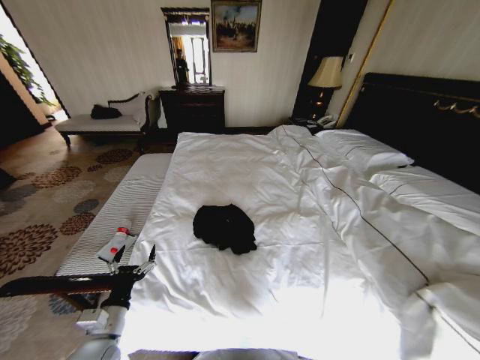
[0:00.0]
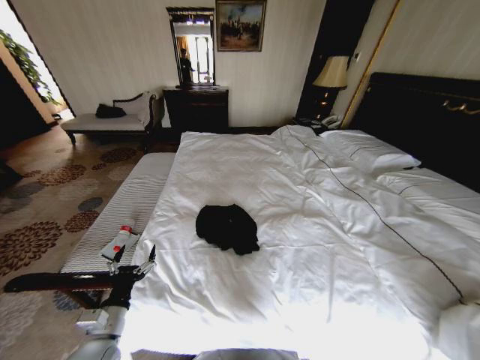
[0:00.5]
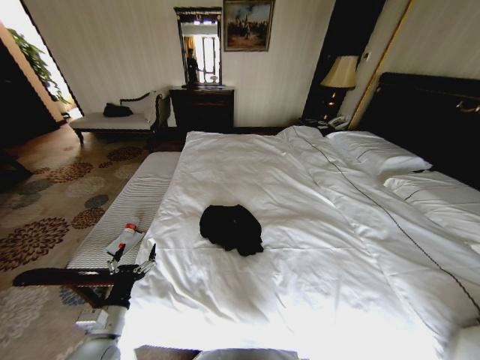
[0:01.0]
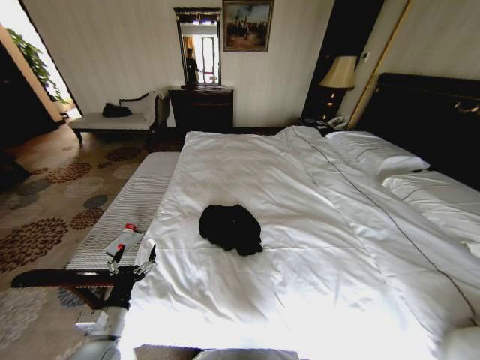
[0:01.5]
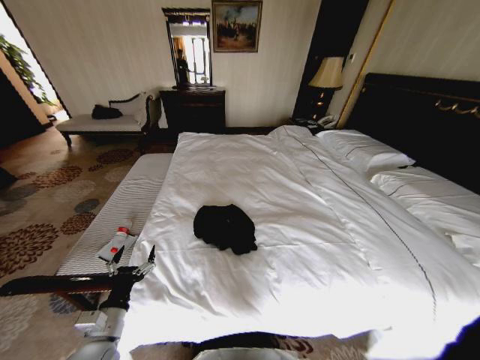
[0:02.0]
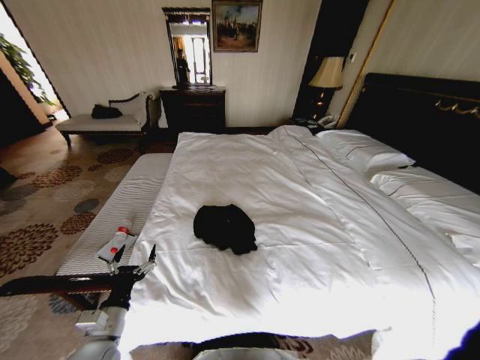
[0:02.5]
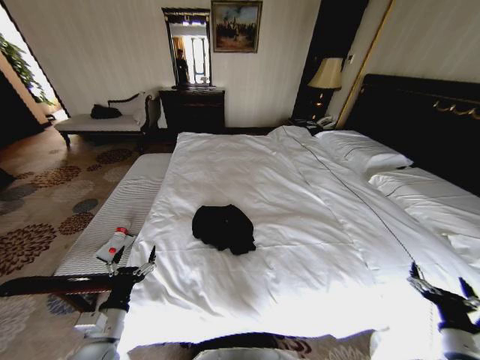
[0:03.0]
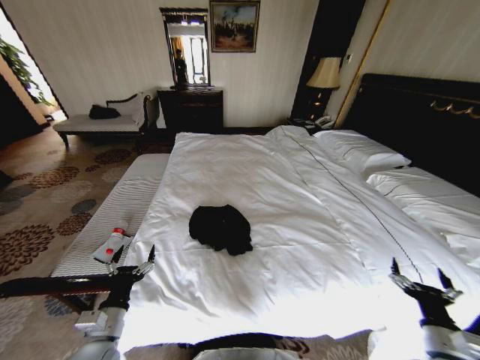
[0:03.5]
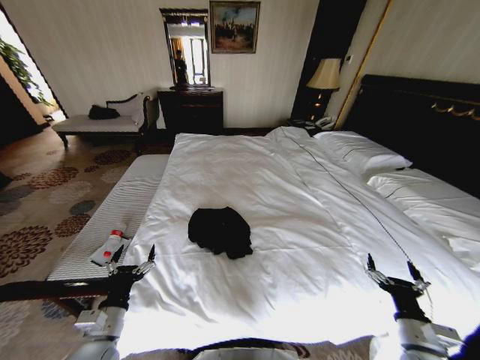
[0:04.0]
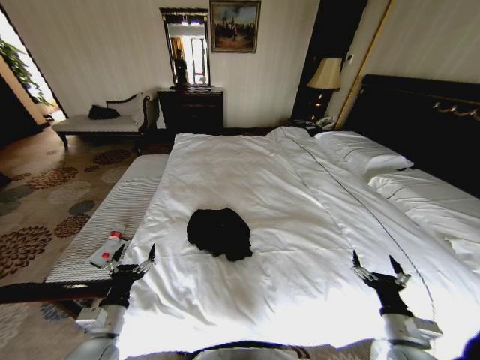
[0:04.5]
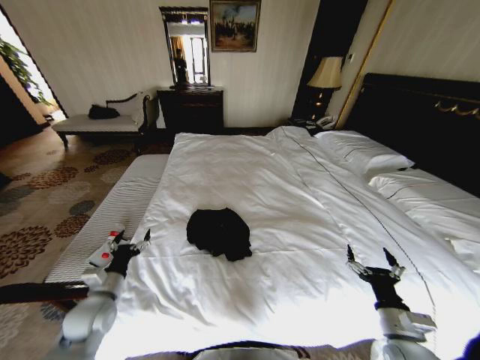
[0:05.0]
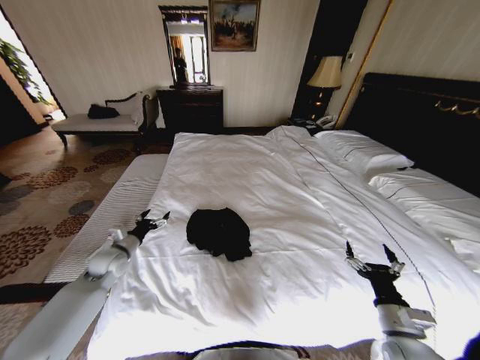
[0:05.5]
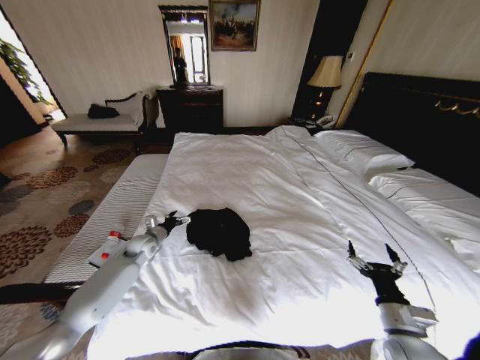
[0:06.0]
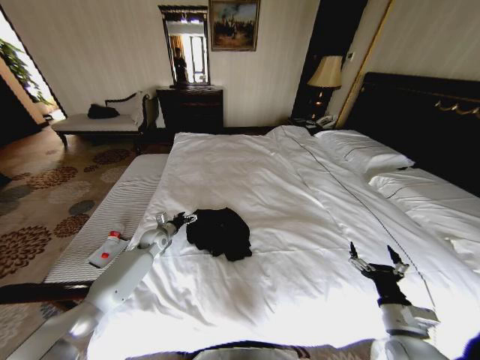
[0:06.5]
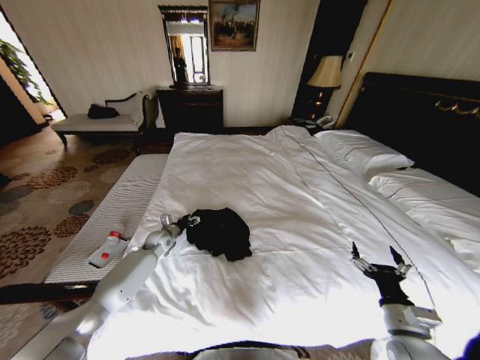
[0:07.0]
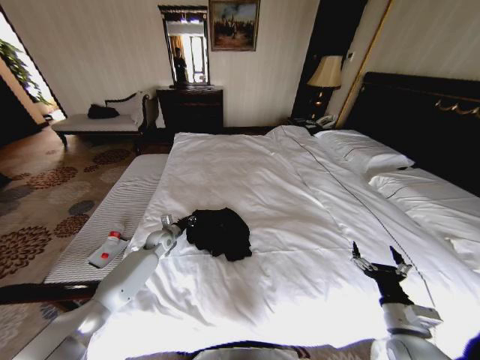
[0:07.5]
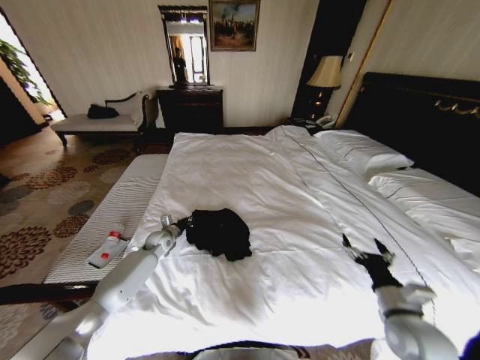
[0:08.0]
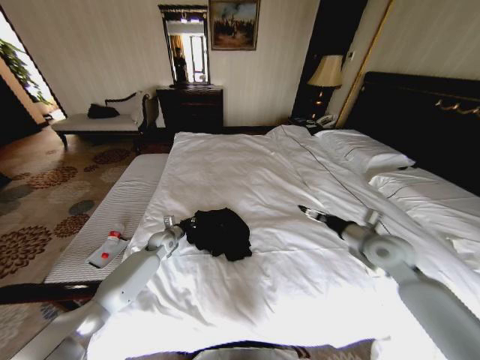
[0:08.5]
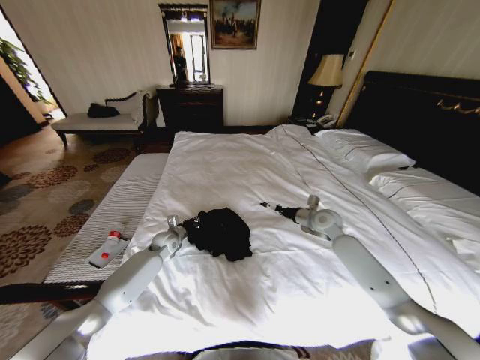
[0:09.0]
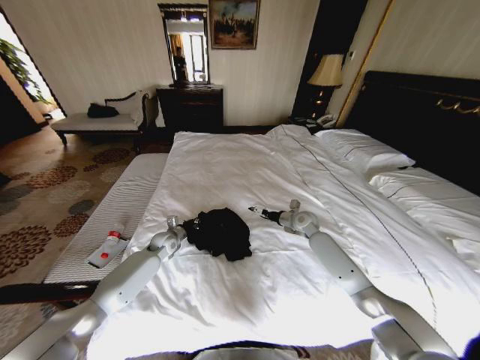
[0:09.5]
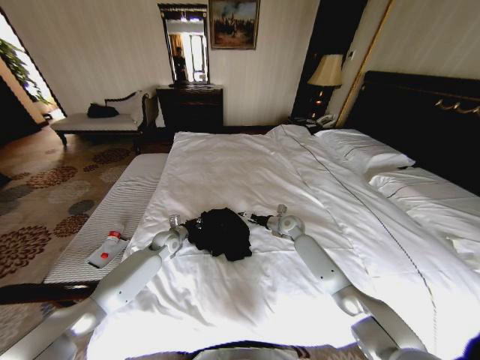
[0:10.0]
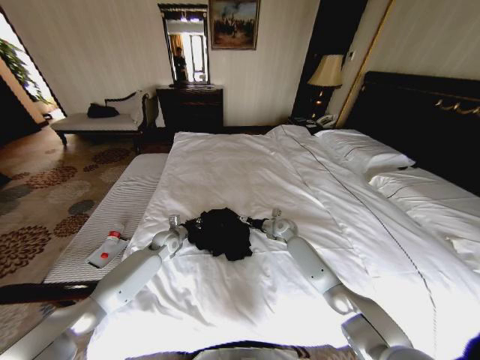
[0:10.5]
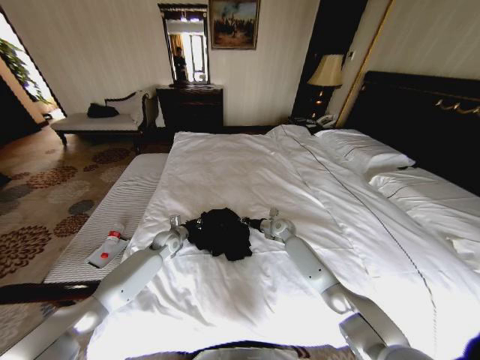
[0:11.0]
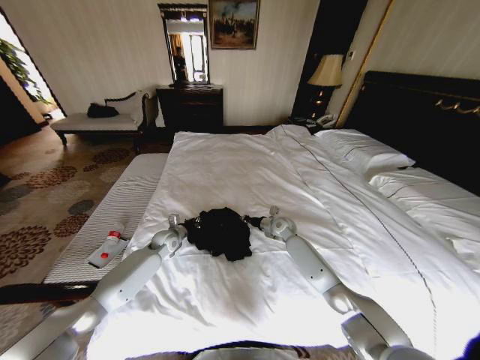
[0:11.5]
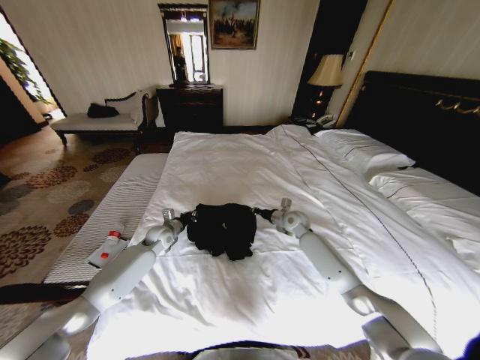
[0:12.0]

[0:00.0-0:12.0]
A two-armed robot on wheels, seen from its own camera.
Task of the whole recording: Fold the clothes on the bed.
0:00.0 to 0:02.0: The right gripper goes roughly 20 cm to the right, downward and backward, and opens up.
0:02.0 to 0:04.0: The right gripper is displaced to the left by roughly 35 cm, and opens up.
0:04.0 to 0:06.0: The right gripper ends up about 5 cm from where it was. Meanwhile the left gripper shifts some 30 cm forward.
0:06.0 to 0:08.0: The left gripper ends up about 5 cm from where it was, and closes its fingers.
0:08.0 to 0:10.0: The right gripper moves forward, roughly 35 cm.
0:10.0 to 0:12.0: The right gripper closes.

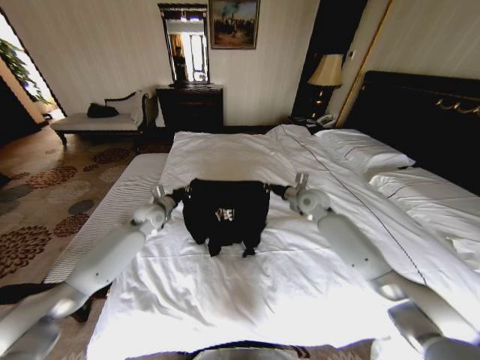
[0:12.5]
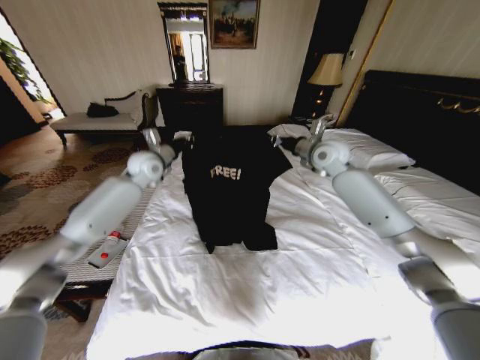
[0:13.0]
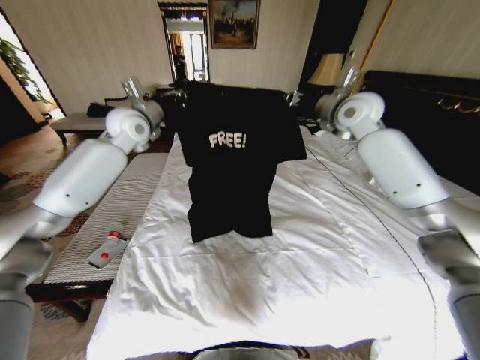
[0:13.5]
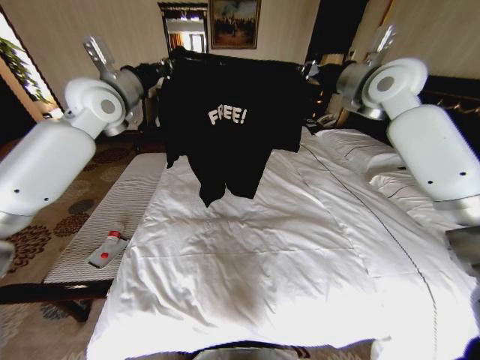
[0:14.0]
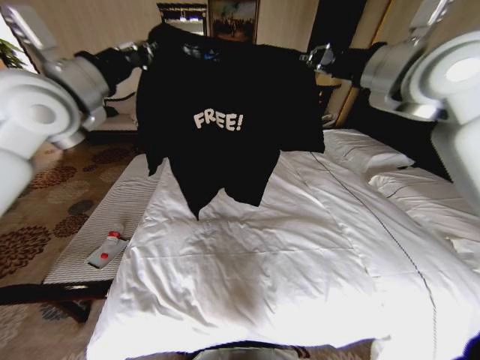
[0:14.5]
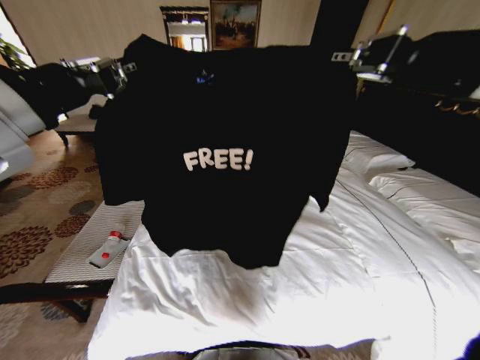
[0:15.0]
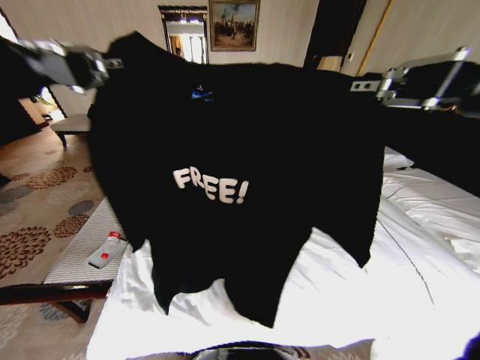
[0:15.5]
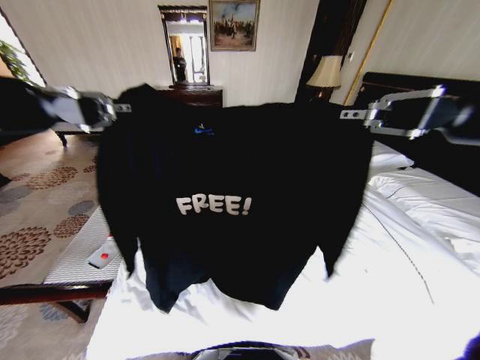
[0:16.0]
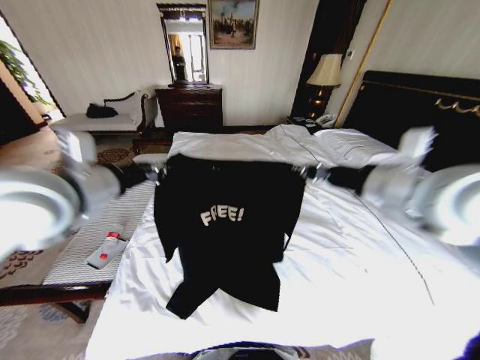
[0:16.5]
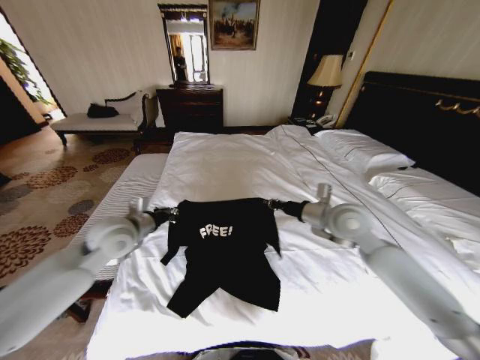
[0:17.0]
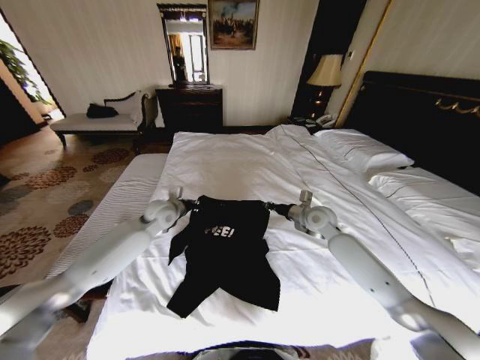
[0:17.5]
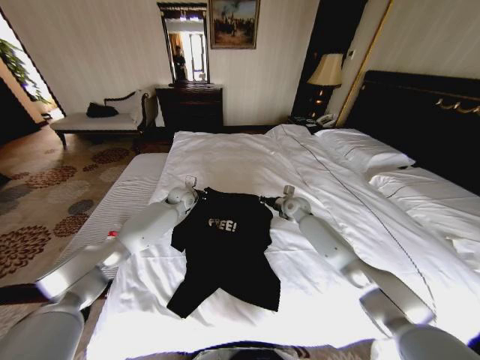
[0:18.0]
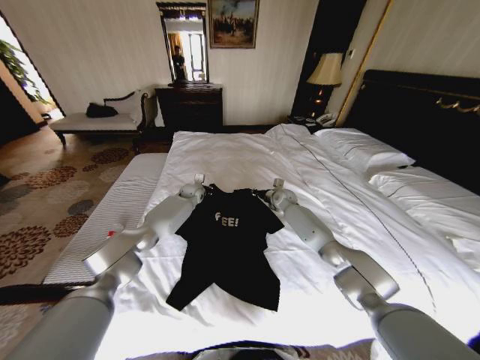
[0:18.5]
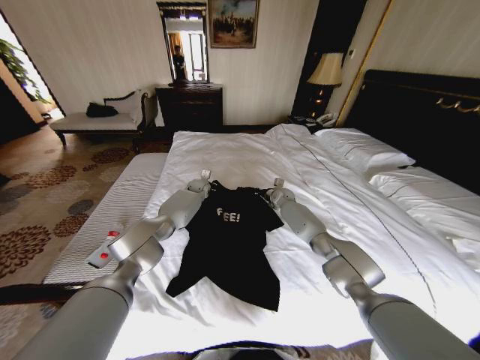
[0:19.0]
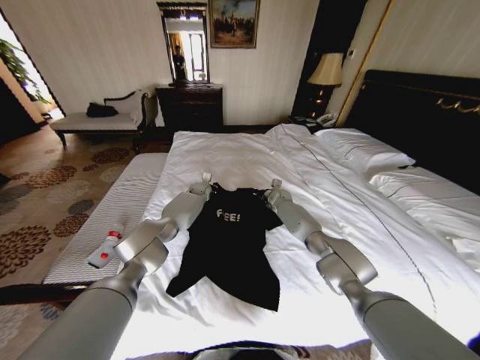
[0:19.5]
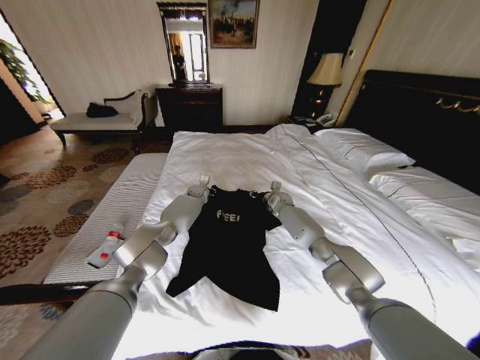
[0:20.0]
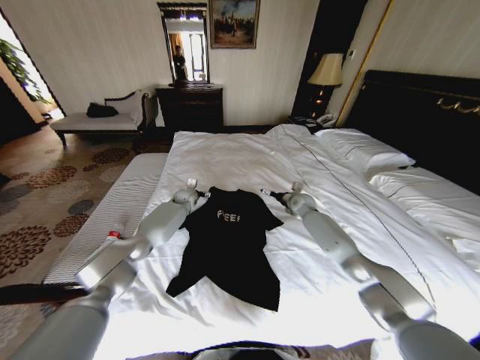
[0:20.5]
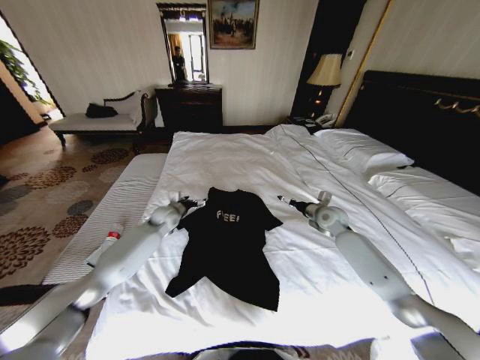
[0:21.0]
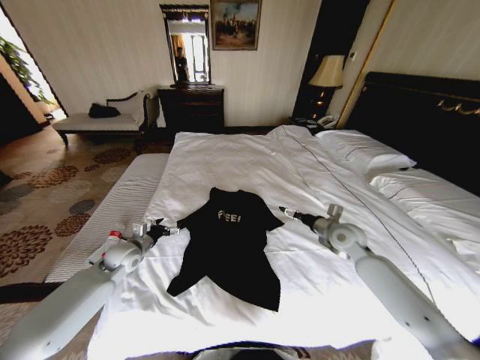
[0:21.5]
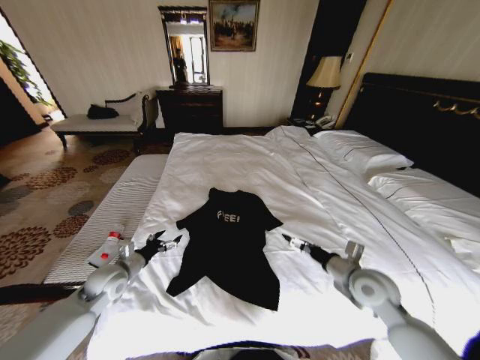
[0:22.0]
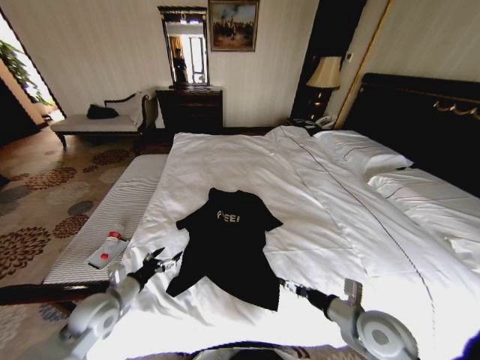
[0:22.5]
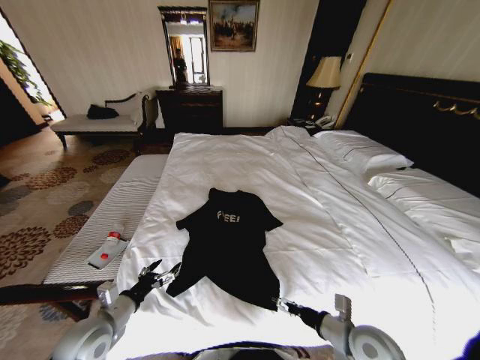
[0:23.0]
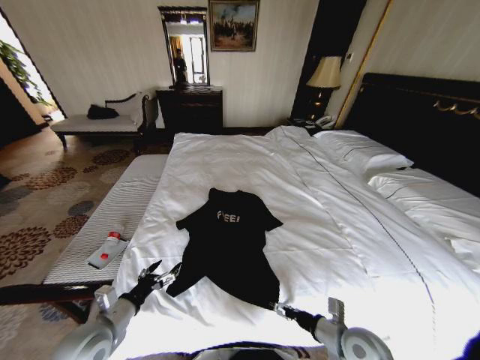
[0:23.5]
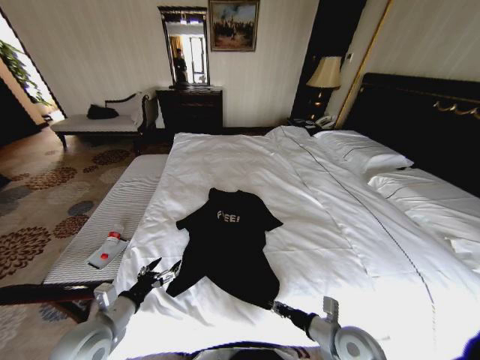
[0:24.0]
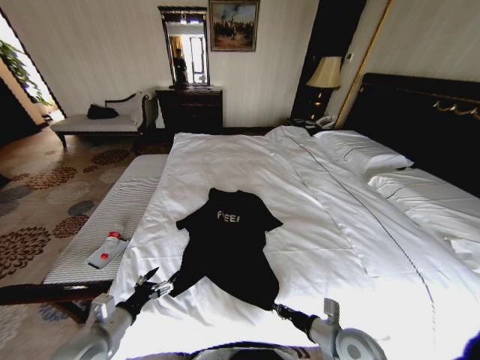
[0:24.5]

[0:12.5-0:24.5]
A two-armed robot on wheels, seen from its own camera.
Task of the whole recording: Fold the clothes on the bed.
0:12.5 to 0:14.5: The grippers both shift upward by roughly 35 cm.
0:14.5 to 0:16.5: Both grippers move backward and downward, approximately 15 cm.
0:16.5 to 0:18.5: Both grippers move forward and downward, some 50 cm.
0:18.5 to 0:20.5: The left gripper opens up; the right gripper moves to the right, some 5 cm, and opens.
0:20.5 to 0:22.5: The two grippers go roughly 40 cm backward.
0:22.5 to 0:24.5: The right gripper heads downward, covering about 5 cm, and closes; the left gripper shifts approximately 10 cm backward.

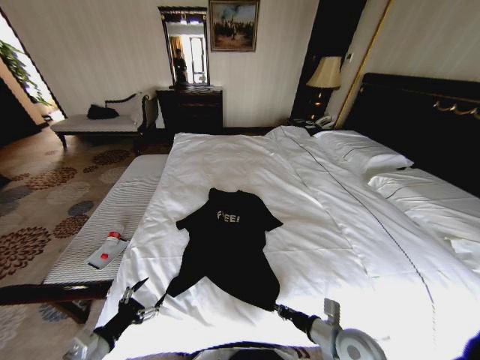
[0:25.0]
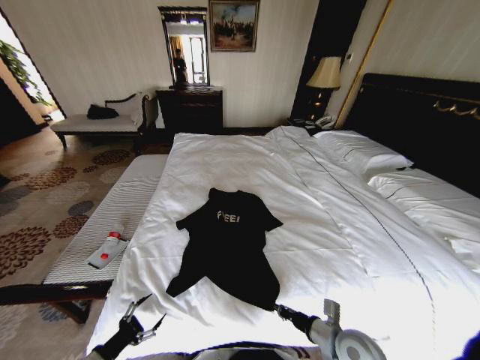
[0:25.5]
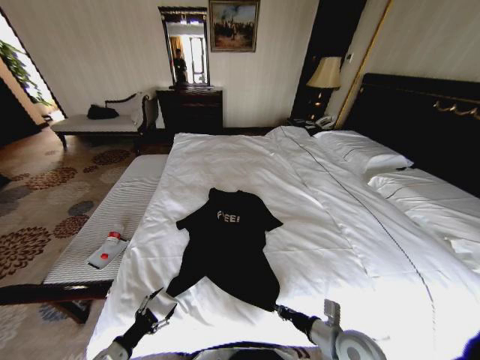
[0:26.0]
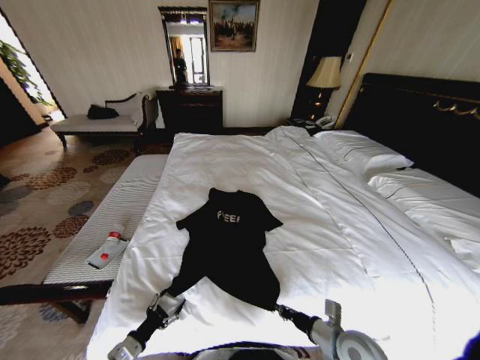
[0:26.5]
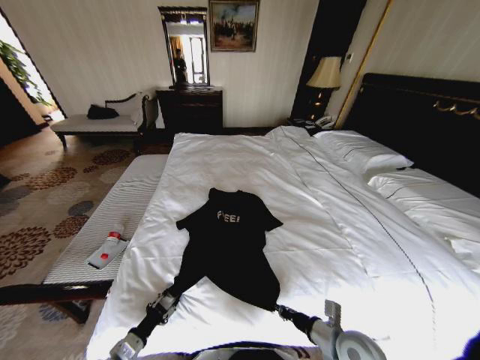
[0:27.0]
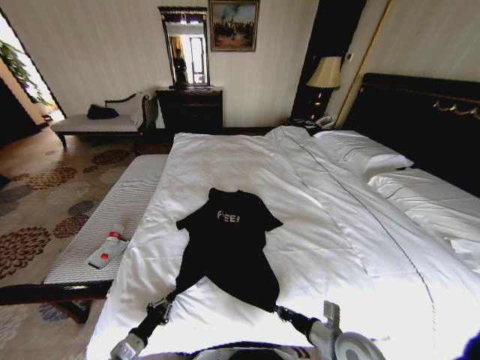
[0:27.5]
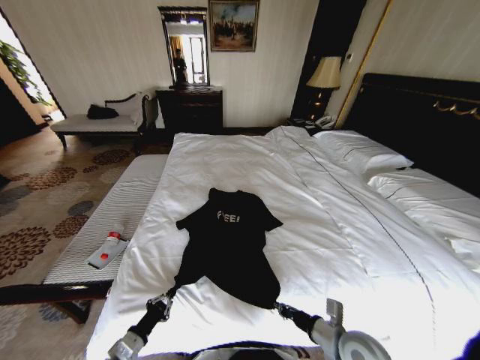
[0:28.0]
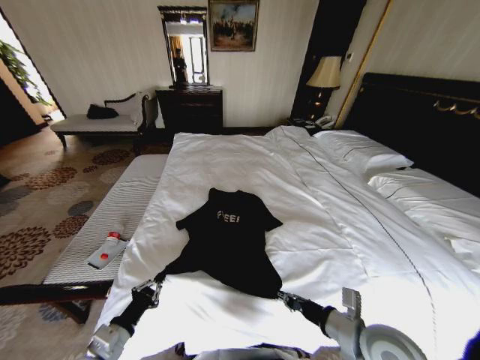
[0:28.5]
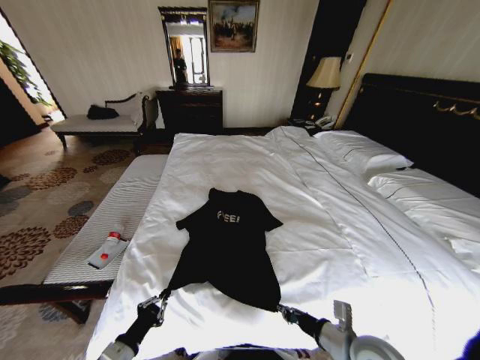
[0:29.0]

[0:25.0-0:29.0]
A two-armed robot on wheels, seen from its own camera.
Task of the whole recording: Fold the clothes on the bed.
0:25.0 to 0:27.0: The left gripper heads downward, covering about 10 cm, and closes.
0:27.0 to 0:29.0: The left gripper shifts roughly 10 cm upward, and closes. The right gripper heads upward, covering some 5 cm.
